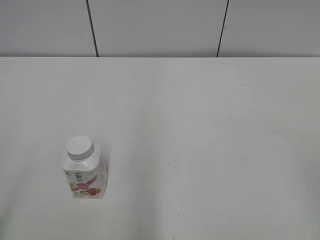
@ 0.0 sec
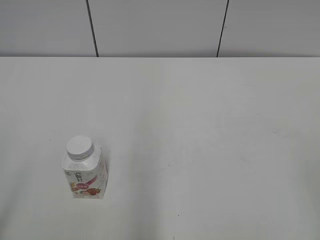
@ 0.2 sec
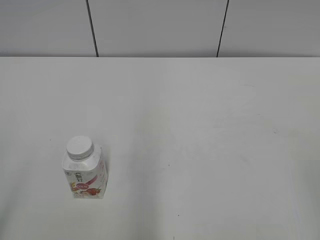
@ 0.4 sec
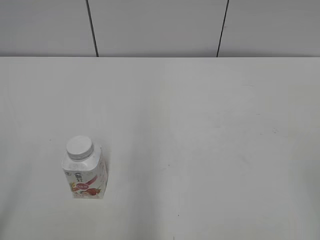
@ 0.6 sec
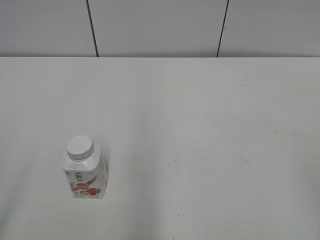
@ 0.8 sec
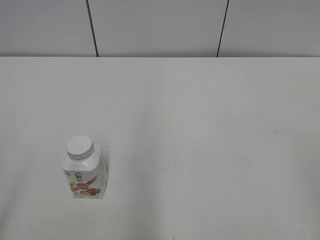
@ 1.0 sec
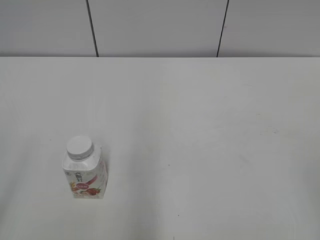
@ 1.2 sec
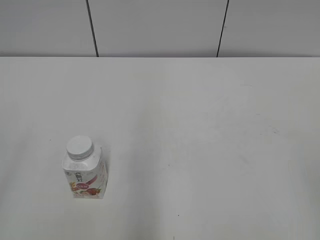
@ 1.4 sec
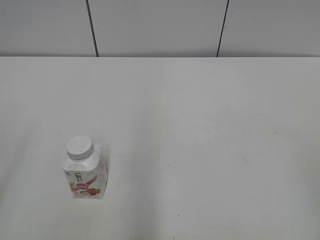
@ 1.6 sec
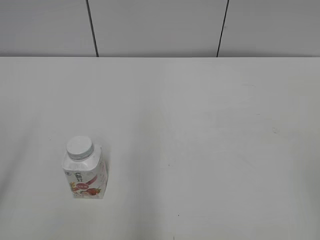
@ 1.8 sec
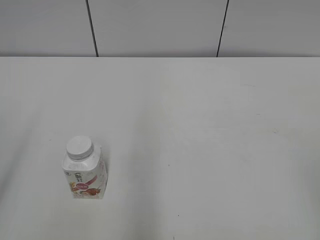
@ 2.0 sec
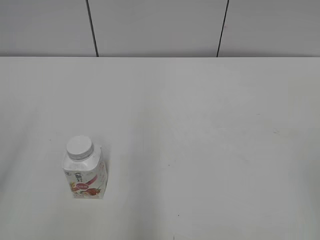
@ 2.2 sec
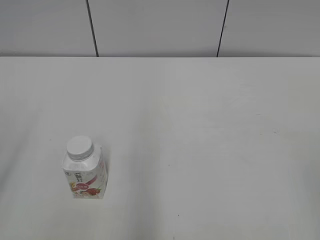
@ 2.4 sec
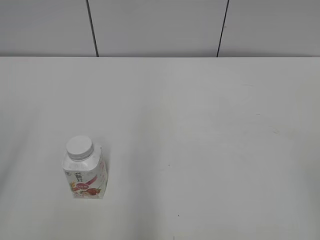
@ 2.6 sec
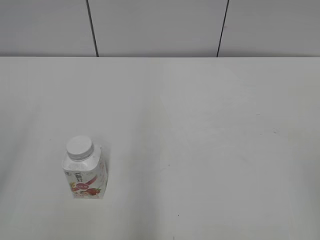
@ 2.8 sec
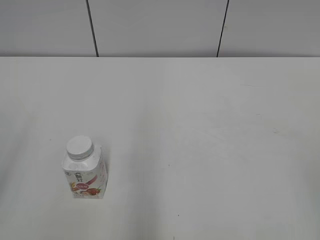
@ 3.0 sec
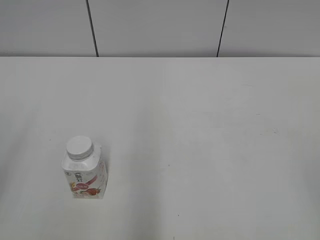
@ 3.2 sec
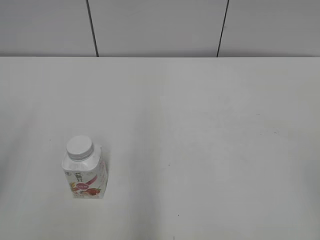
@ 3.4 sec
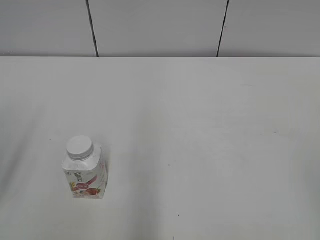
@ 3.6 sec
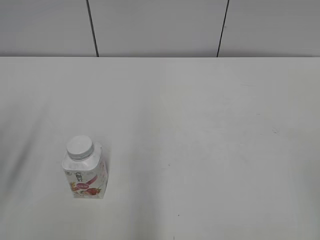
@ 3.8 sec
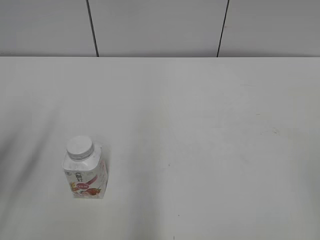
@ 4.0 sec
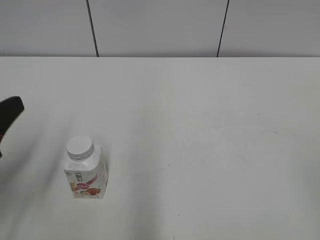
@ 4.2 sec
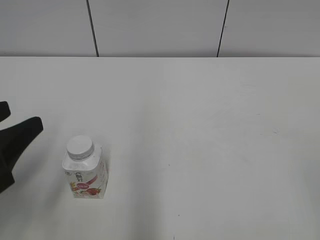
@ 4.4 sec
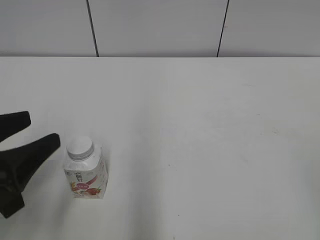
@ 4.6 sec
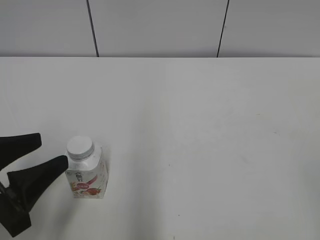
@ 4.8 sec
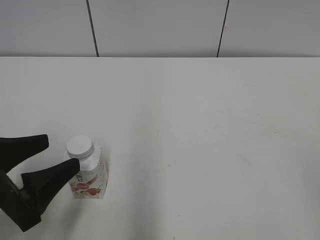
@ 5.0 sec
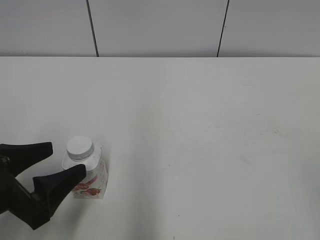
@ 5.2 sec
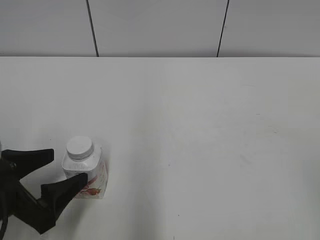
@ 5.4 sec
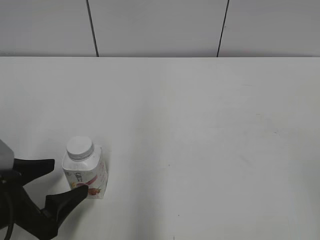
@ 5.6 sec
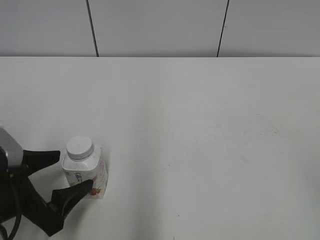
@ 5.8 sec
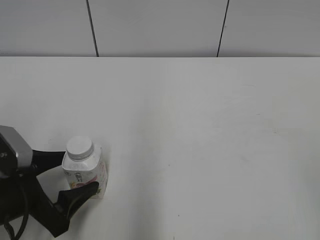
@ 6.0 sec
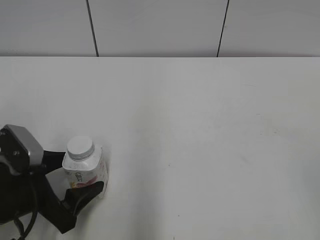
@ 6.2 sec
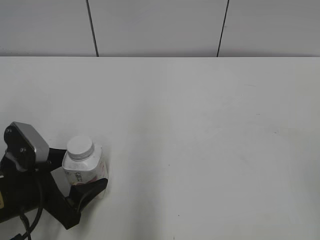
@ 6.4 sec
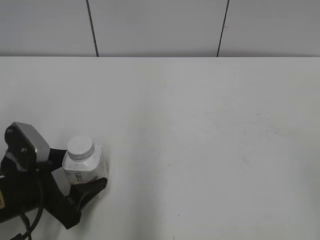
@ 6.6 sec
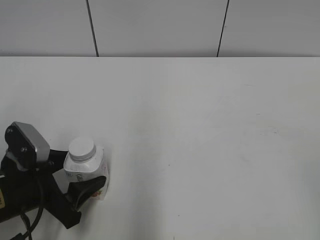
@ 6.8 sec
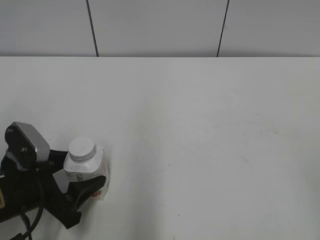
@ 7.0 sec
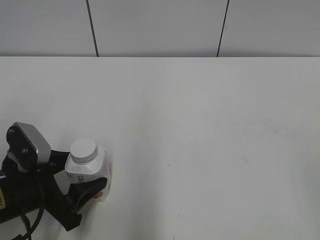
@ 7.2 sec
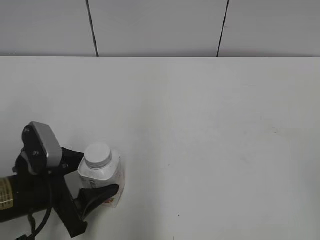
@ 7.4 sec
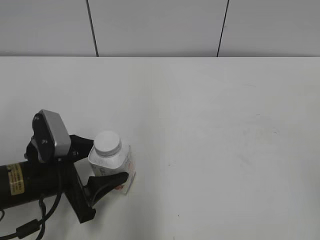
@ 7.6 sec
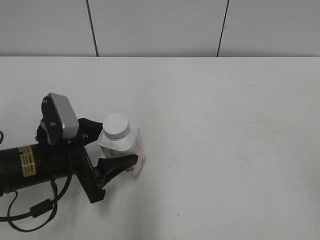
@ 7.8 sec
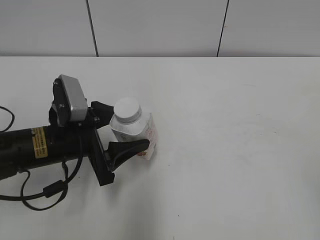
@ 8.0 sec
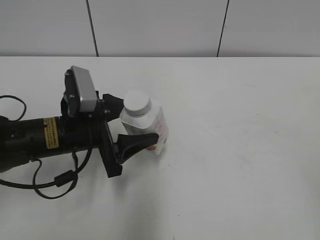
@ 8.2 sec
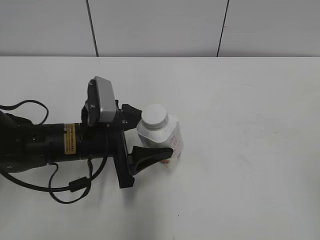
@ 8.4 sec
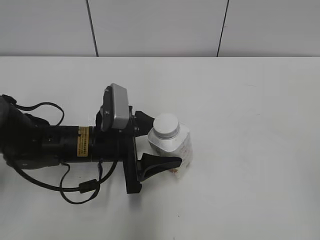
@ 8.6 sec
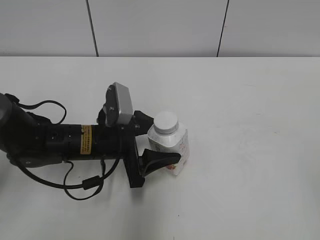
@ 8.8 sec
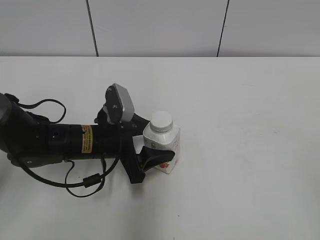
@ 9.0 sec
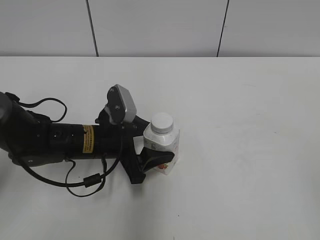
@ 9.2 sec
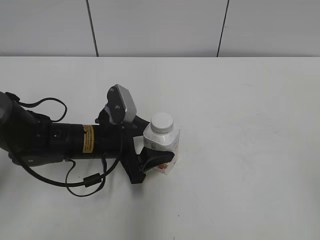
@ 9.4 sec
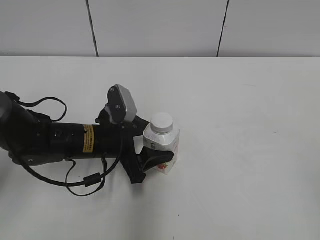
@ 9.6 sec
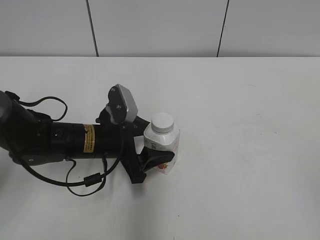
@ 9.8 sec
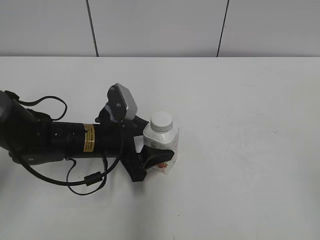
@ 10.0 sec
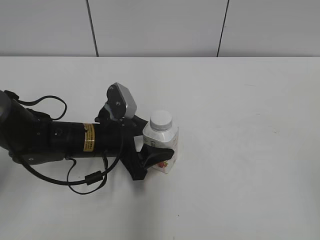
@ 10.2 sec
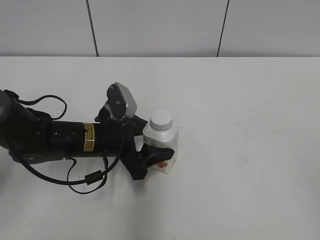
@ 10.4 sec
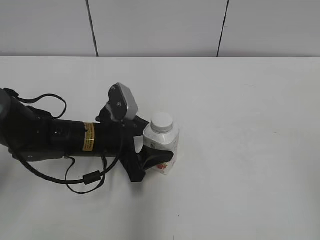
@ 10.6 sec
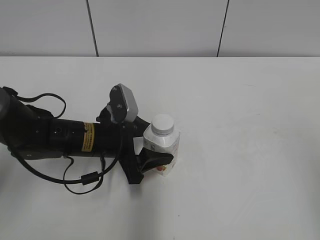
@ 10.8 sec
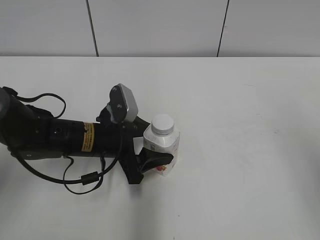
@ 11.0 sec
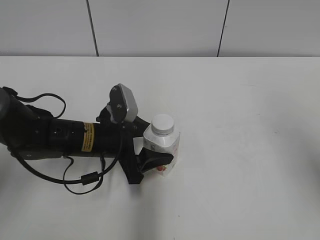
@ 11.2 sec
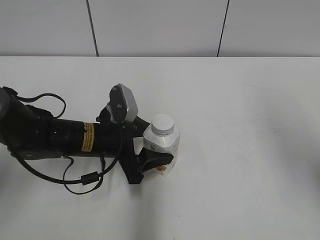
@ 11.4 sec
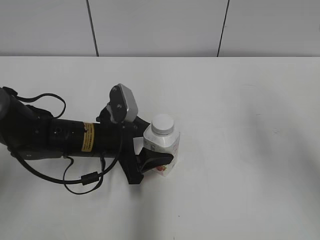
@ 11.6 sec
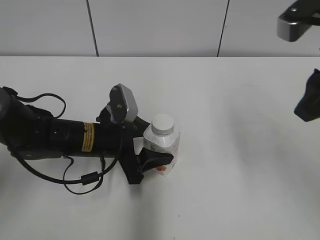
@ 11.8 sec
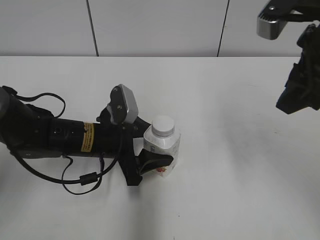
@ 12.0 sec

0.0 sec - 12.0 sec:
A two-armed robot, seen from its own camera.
Step, 0.0 sec - 6.8 sec: Grab the Yili Changqing with the left hand.
Step, 7.2 sec - 11.2 sec: Move the Yili Changqing from left to right.
3.0 sec - 4.4 sec: The left gripper travels downward and to the right by approximately 10 cm.
4.4 sec - 6.0 sec: The left gripper is displaced downward by about 10 cm, and opens up.
6.0 sec - 7.6 sec: The left gripper moves about 5 cm, and closes its fingers.
7.6 sec - 9.0 sec: The left gripper moves forward and to the right, about 10 cm.
9.0 sec - 10.4 sec: The grippers make only small movements.
10.4 sec - 12.0 sec: The right gripper shifts about 30 cm forward and to the left, and closes up.

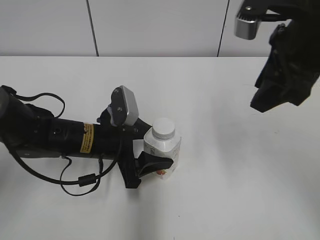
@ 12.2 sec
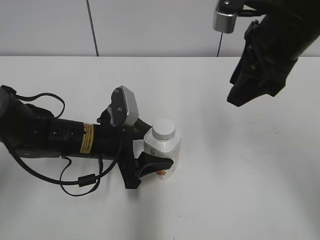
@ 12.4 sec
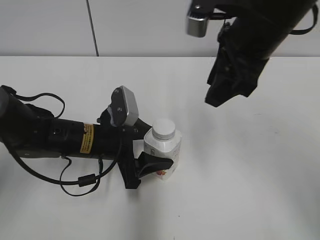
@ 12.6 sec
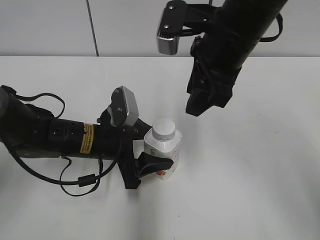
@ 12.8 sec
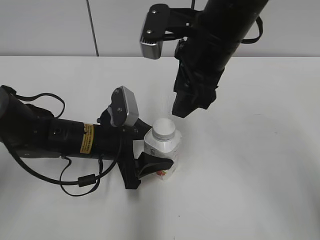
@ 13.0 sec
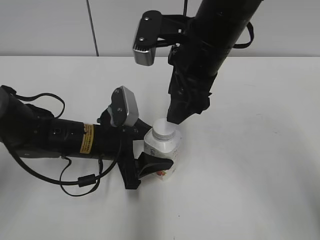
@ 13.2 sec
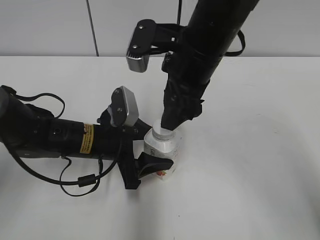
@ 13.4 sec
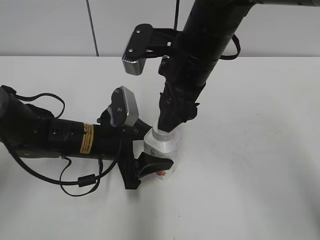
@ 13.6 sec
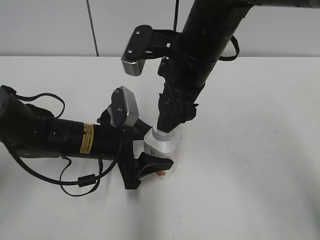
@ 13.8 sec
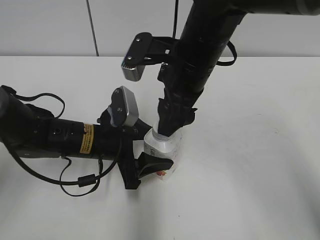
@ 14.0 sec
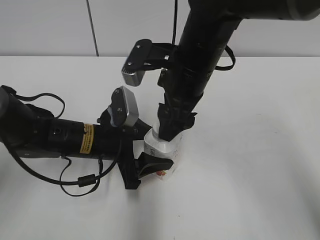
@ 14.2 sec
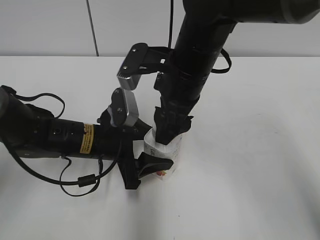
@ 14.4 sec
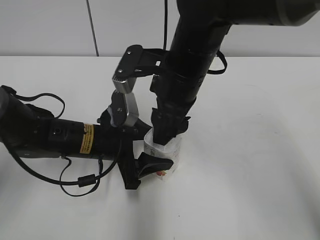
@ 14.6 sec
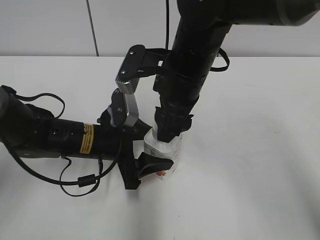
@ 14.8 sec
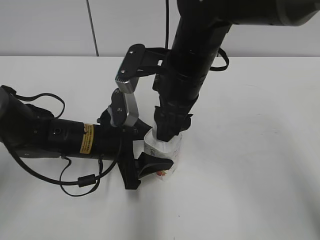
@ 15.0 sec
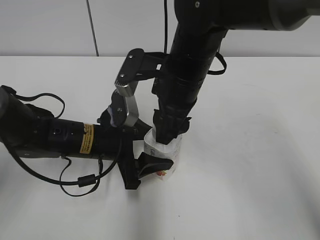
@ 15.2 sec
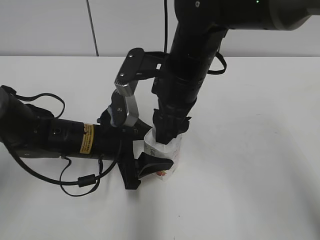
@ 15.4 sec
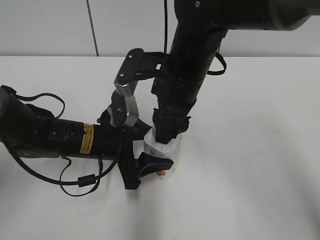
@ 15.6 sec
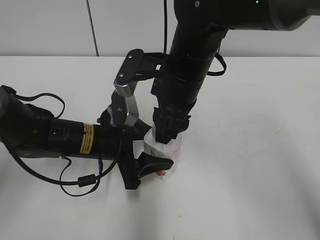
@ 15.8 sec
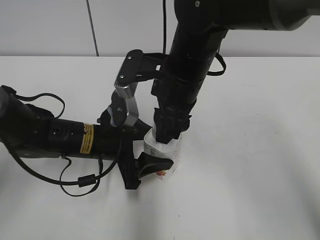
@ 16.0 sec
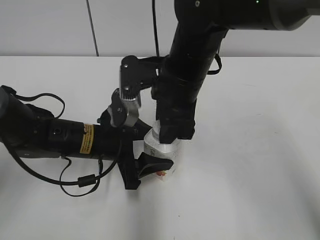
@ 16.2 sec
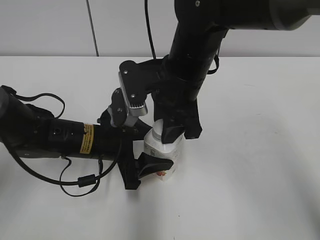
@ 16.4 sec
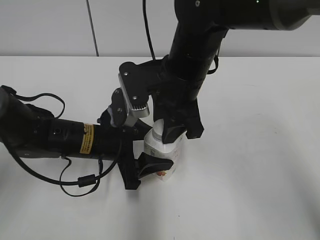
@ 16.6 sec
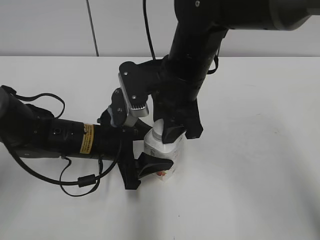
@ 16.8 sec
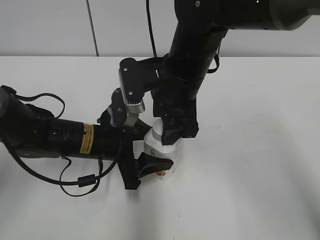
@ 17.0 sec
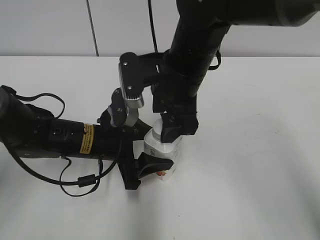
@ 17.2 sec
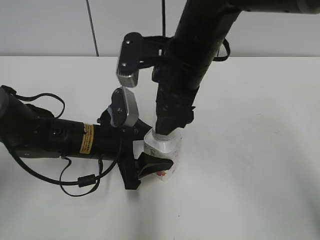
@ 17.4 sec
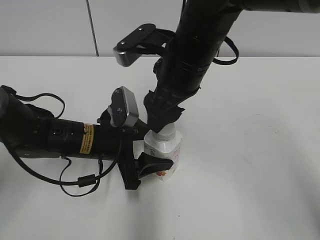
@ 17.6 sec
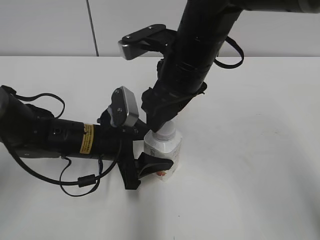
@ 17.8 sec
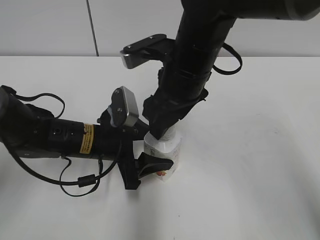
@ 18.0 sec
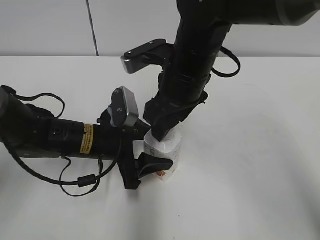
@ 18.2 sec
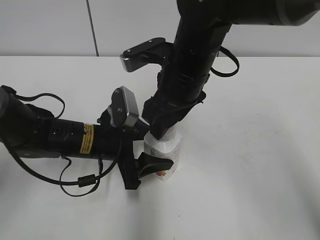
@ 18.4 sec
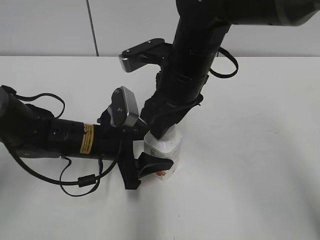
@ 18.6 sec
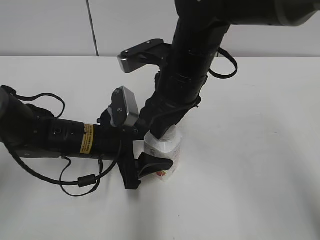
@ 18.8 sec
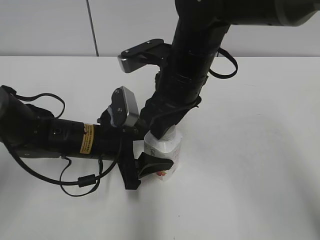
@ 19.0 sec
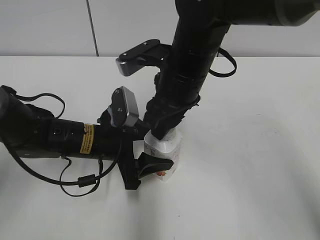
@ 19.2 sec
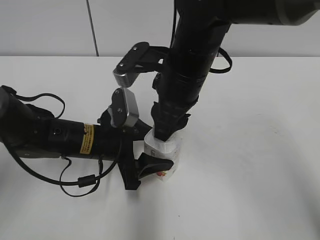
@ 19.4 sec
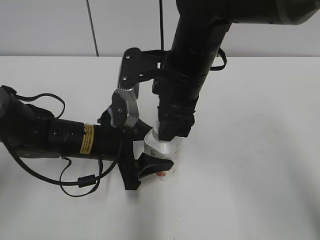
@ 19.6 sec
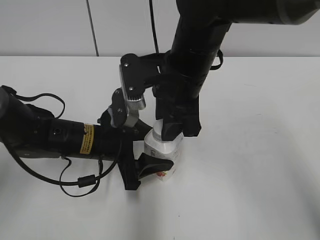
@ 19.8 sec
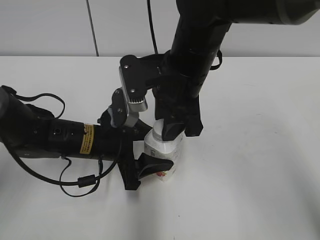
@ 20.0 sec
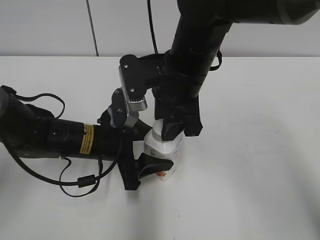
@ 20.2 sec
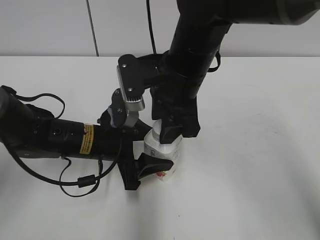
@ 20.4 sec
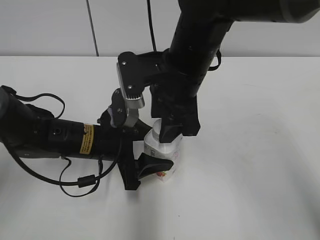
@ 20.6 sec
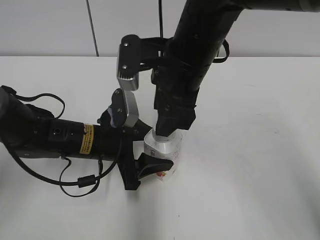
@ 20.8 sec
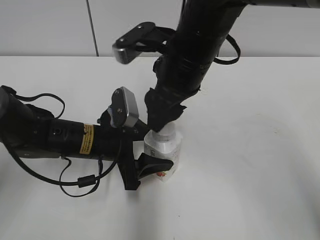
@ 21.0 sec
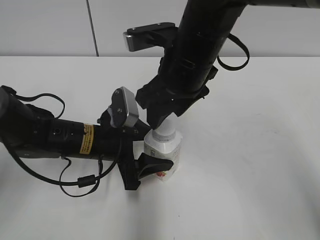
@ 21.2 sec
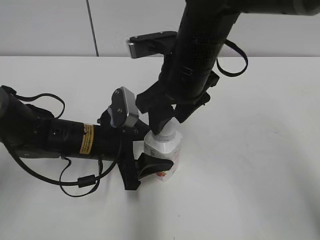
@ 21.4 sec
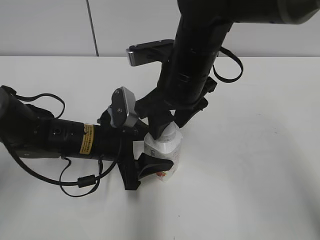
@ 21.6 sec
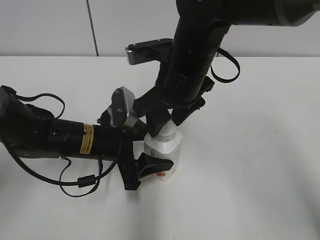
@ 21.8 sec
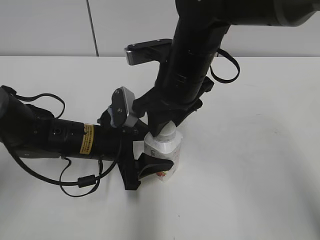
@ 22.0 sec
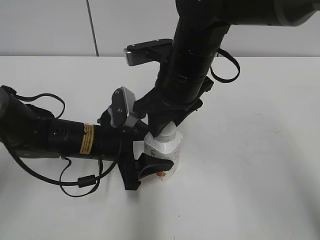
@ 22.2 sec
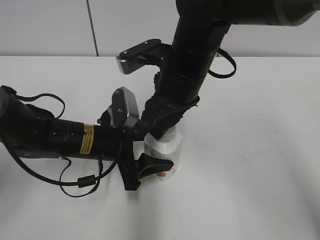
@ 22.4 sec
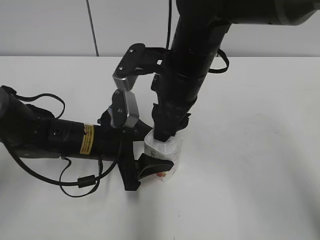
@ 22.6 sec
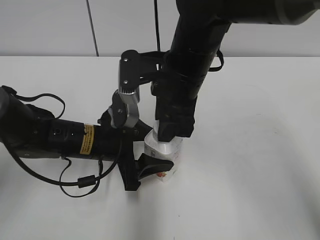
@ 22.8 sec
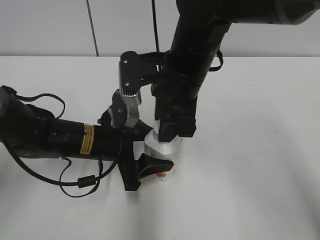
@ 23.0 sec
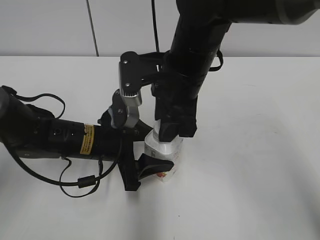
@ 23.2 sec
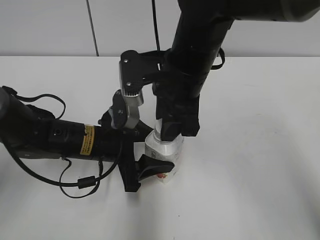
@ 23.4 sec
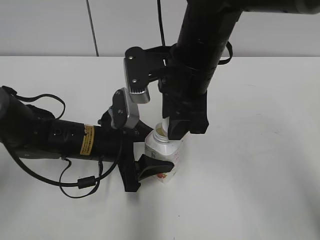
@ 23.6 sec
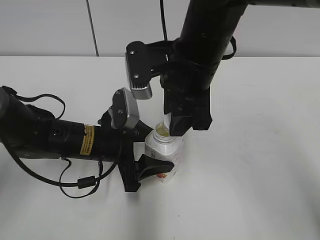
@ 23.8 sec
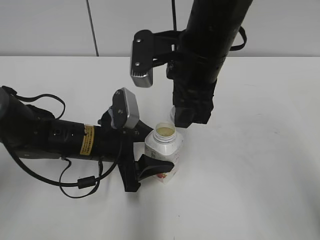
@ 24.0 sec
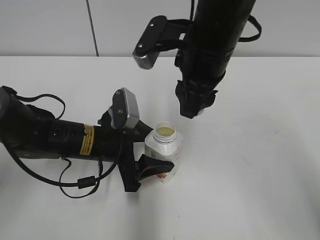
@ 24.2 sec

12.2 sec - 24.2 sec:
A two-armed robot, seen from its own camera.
12.2 sec - 13.8 sec: The right gripper goes about 15 cm to the left and downward, and opens its fingers.
13.8 sec - 15.2 sec: The grippers stay close to where they were, moving slightly.
15.2 sec - 16.6 sec: The right gripper closes.
16.6 sec - 18.2 sec: The right gripper opens its fingers.
18.2 sec - 19.8 sec: The right gripper closes its fingers.
19.8 sec - 21.2 sec: The right gripper opens.
21.2 sec - 22.6 sec: The right gripper closes.
